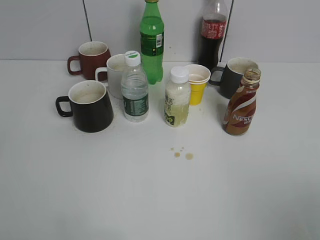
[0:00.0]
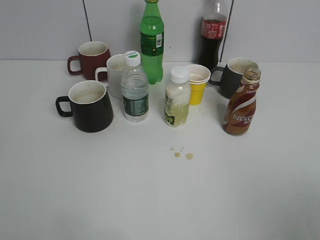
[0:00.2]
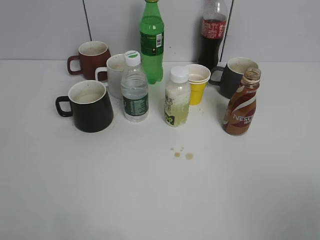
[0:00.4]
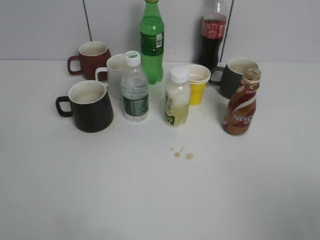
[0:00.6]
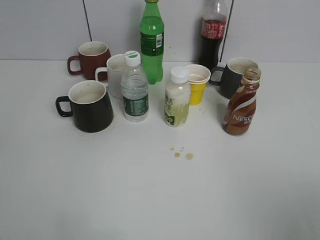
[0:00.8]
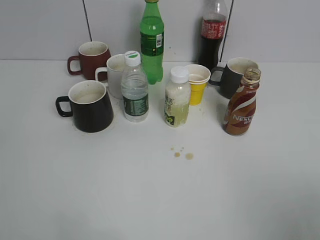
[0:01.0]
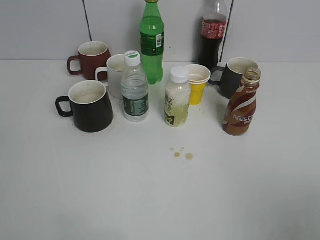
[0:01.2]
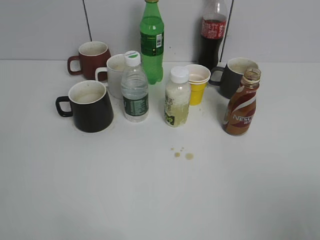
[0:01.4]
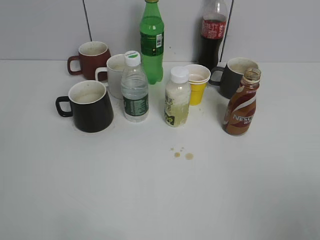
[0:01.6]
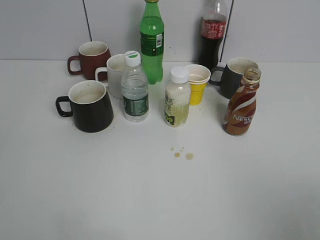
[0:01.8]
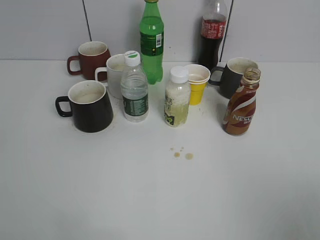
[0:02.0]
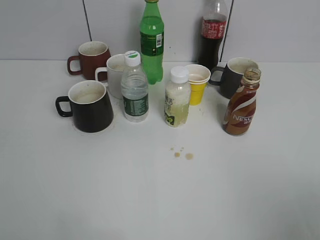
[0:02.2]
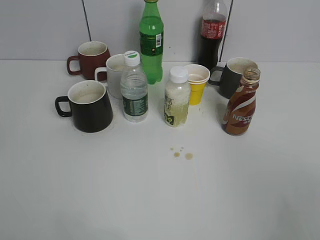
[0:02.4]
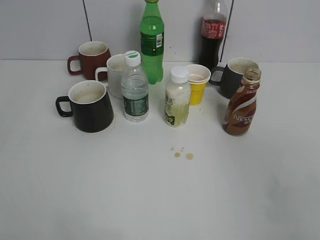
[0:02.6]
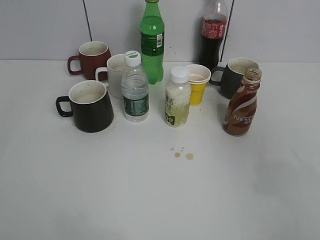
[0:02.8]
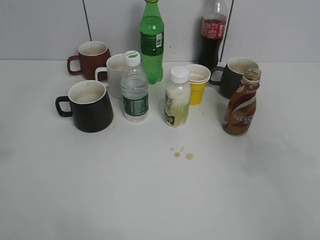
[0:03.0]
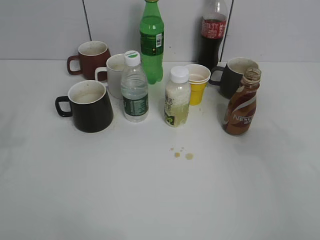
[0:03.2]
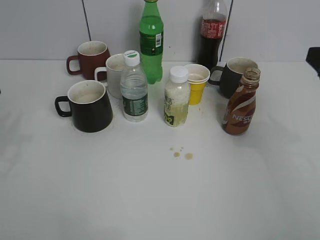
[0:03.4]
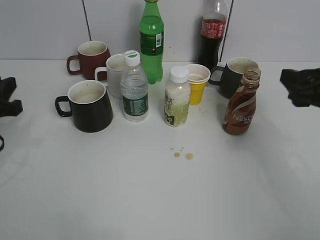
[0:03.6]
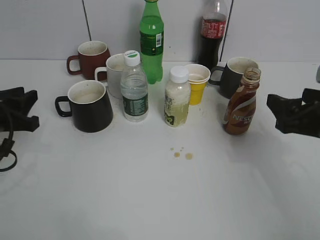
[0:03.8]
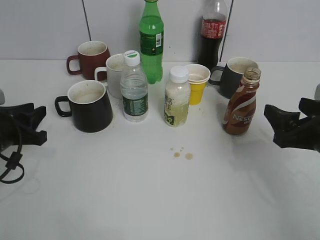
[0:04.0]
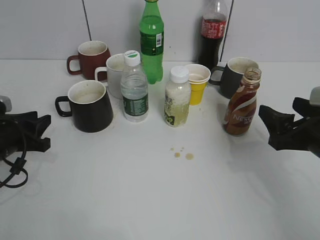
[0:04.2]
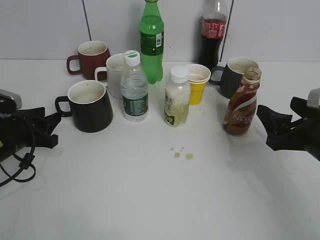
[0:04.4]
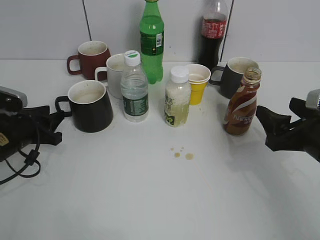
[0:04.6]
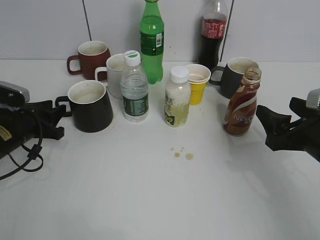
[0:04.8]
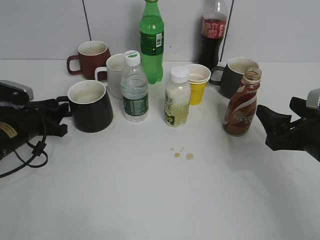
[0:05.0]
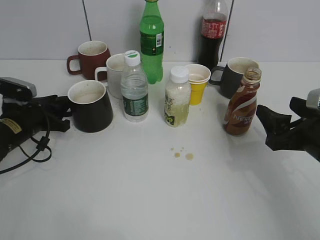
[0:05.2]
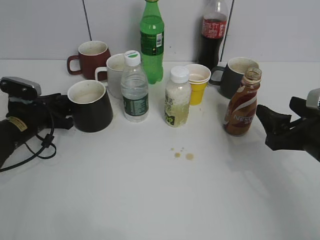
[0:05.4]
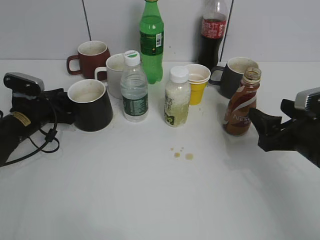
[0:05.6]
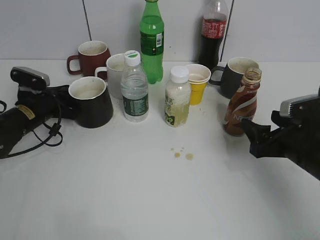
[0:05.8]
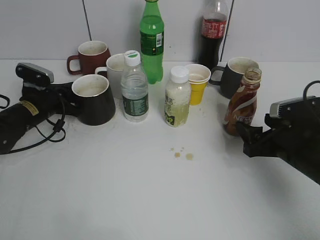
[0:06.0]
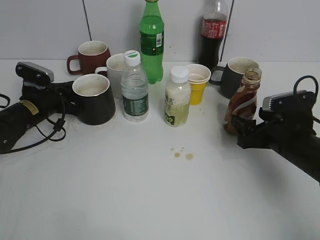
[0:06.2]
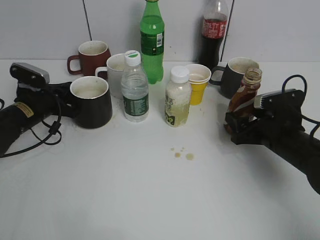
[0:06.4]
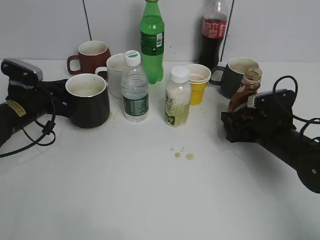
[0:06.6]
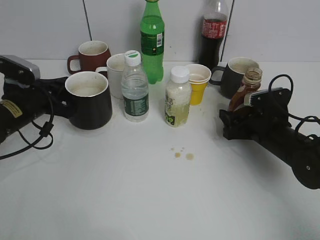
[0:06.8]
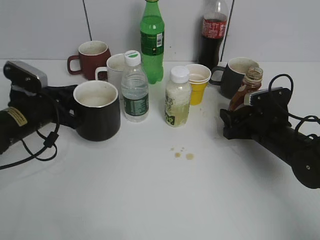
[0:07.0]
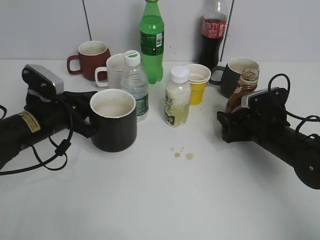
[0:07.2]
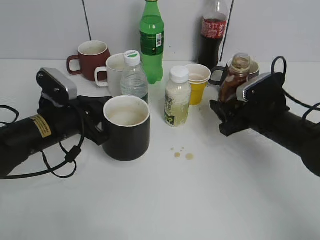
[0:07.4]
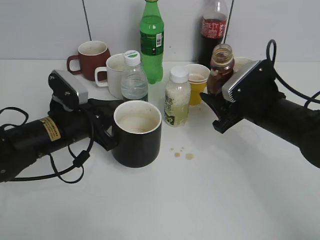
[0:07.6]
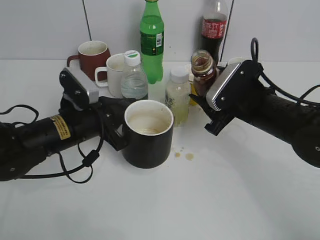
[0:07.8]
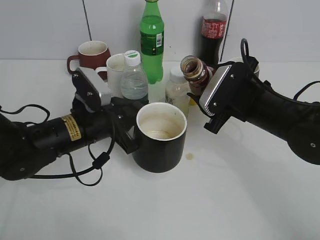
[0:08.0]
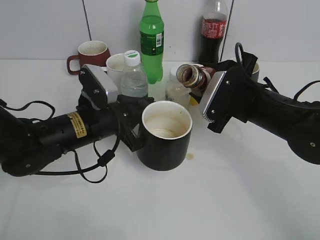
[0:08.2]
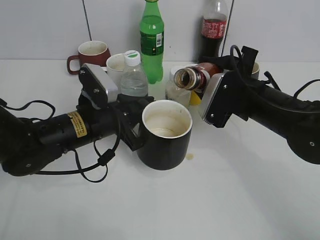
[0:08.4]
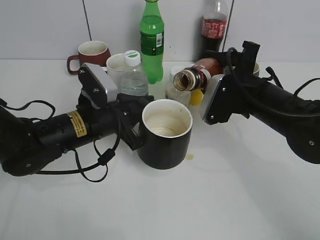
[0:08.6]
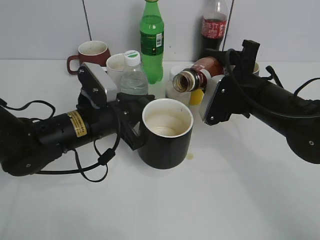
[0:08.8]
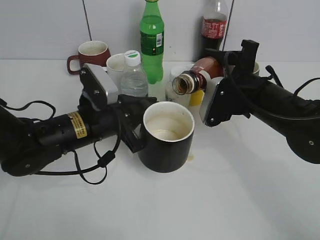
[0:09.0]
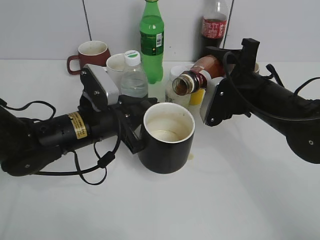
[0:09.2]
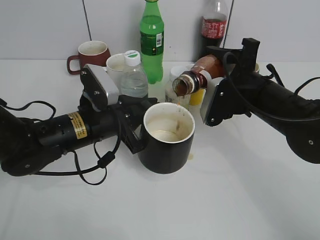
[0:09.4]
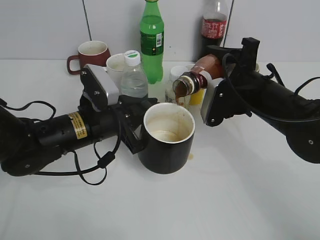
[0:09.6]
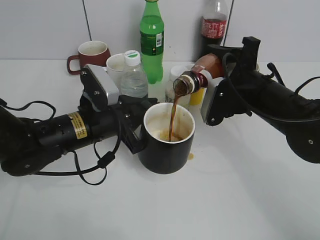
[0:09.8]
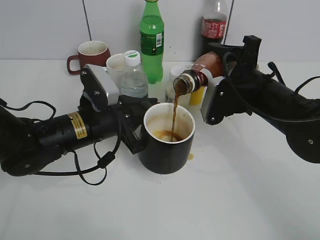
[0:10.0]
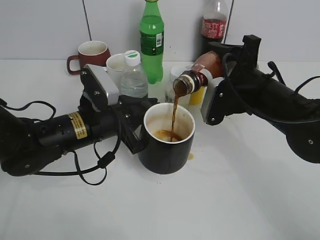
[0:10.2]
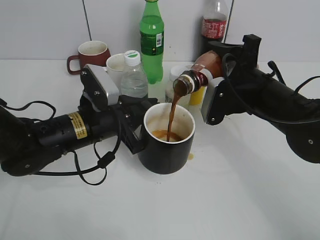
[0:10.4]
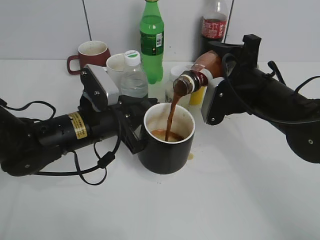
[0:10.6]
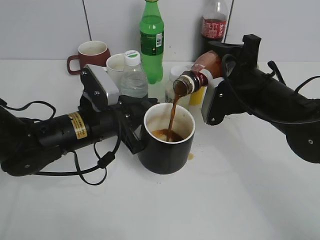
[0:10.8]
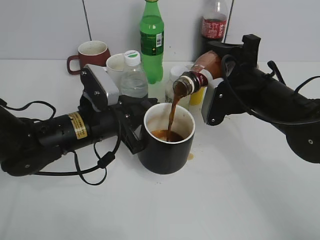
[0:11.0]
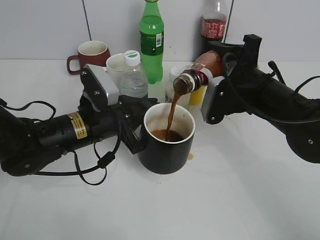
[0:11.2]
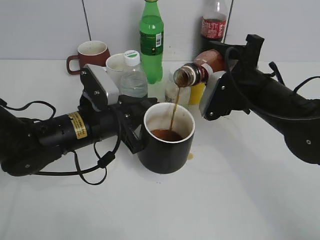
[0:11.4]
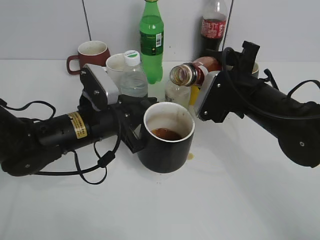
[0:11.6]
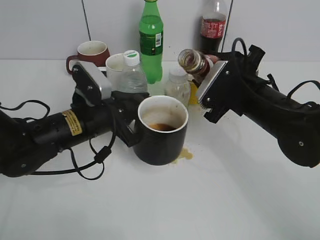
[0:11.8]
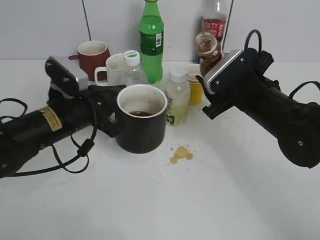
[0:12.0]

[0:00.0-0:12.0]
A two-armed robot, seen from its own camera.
Step, 0:02.2 to 0:05.4: Grasp the black cup with left gripper.
Step, 0:05.6 to 0:06.0: Grasp the bottle with coffee with right gripper.
Step, 0:06.2 to 0:07.0: Lift the black cup with left gripper.
Step, 0:07.2 to 0:11.8: Pour the coffee from bottle to cup with right gripper.
0:01.6 to 0:03.0: The right gripper goes roughly 15 cm forward.
0:03.0 to 0:04.4: The two grippers go roughly 20 cm downward and forward.
0:04.4 to 0:06.0: The left gripper heads forward, covering roughly 10 cm, and closes its fingers; the right gripper goes some 5 cm downward.
0:06.0 to 0:07.6: The left gripper moves backward and to the right, some 15 cm; the right gripper goes approximately 10 cm forward and to the left, and closes up.
0:07.6 to 0:09.0: The left gripper is displaced to the right by about 5 cm.
0:09.0 to 0:10.4: The grippers move only a little.

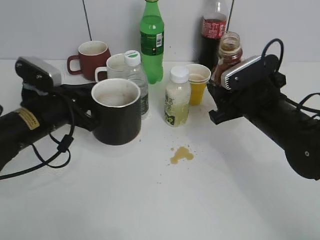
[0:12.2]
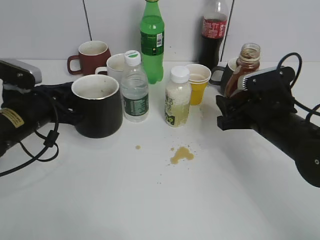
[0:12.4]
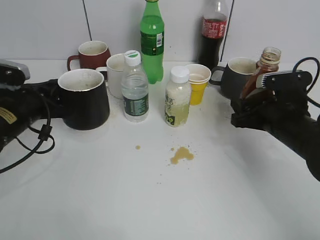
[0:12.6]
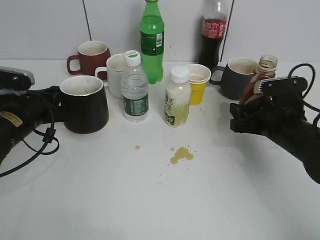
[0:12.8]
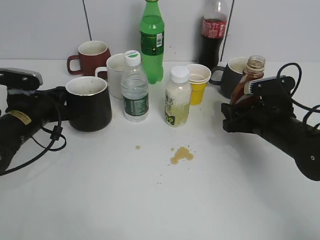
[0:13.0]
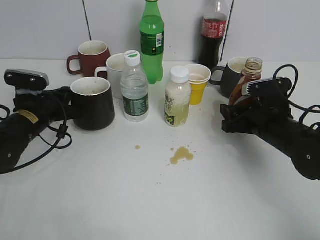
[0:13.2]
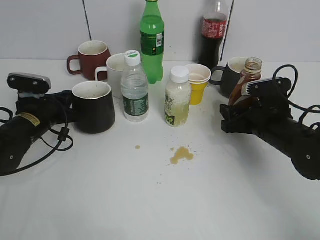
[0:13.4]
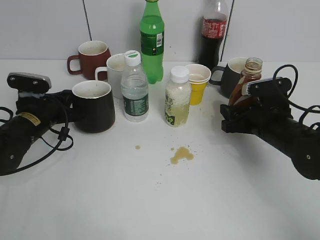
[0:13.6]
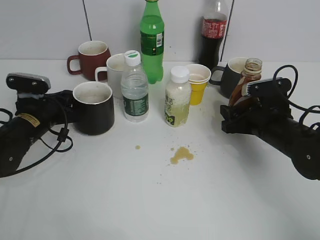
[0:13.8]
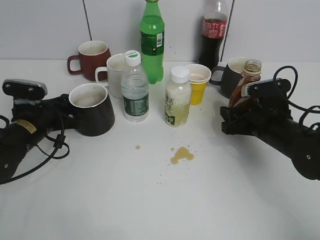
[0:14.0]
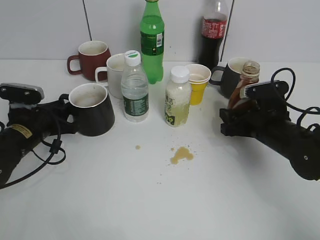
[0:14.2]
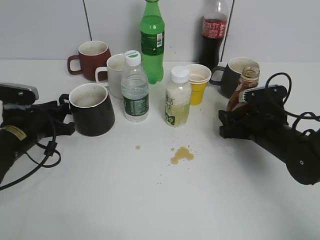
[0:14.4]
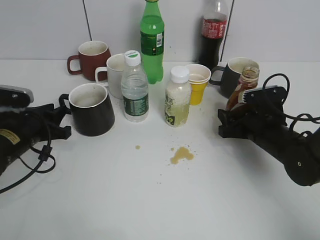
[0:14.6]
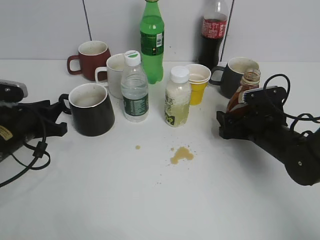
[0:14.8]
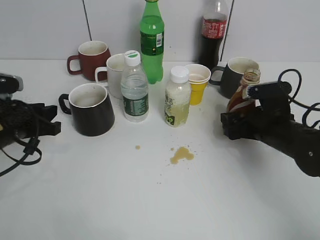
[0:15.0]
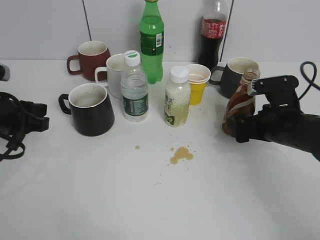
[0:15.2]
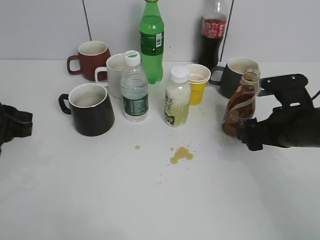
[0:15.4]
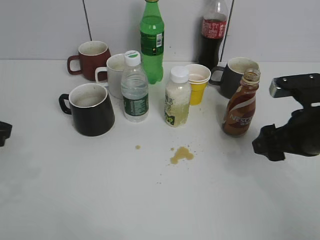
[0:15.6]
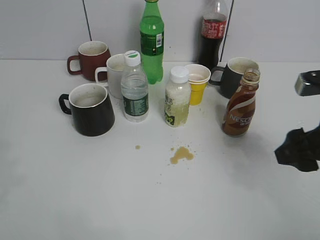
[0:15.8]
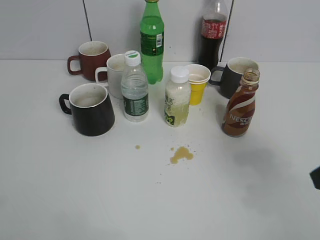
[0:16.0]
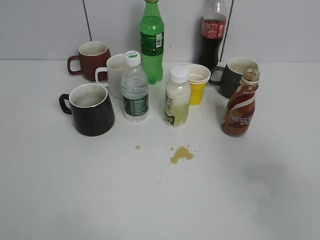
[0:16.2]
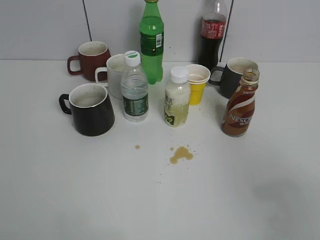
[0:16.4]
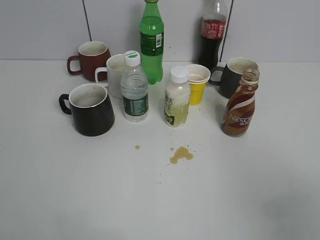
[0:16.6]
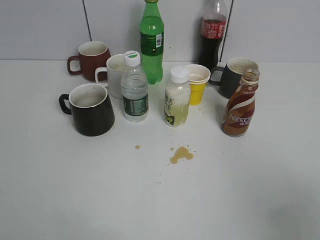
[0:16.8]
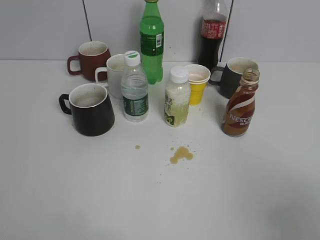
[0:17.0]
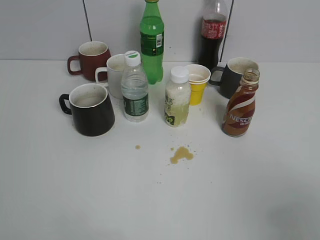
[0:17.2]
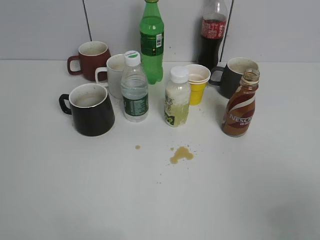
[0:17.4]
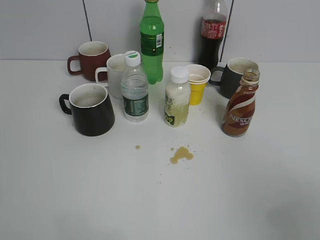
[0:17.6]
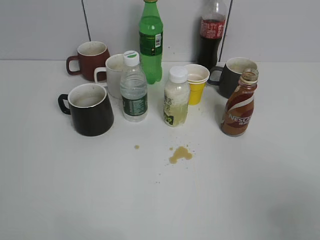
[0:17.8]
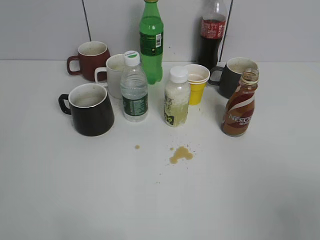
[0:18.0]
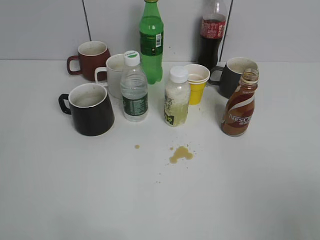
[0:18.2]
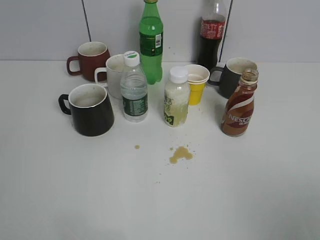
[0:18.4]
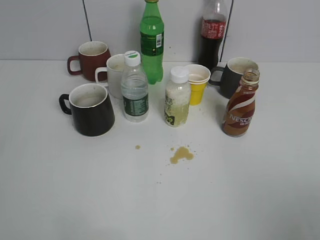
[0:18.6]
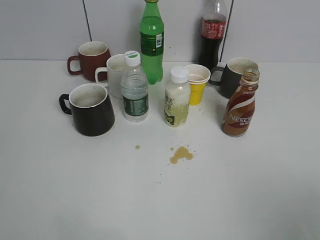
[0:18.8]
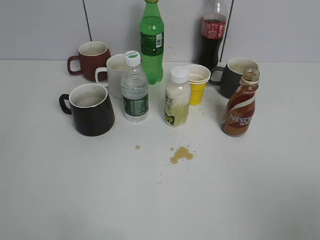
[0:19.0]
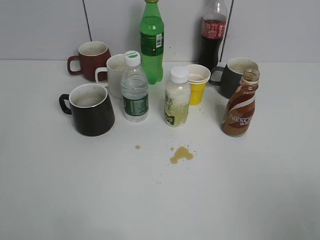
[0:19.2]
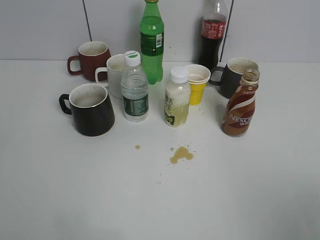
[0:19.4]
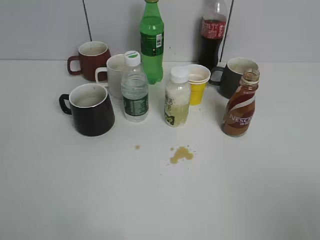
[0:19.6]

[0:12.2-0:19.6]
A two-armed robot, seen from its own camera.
Step, 0:12.2 to 0:15.0: Place the coffee bottle on the table with right gripper.
0:12.2 to 0:13.6: The right gripper is displaced downward by some 5 cm. Meanwhile the left gripper heads downward and forward, covering roughly 10 cm.
0:13.6 to 0:15.2: The right gripper opens. Meanwhile the left gripper goes roughly 10 cm backward and upward, and opens its fingers.
0:15.2 to 0:16.6: The grippers both shift backward and upward by roughly 30 cm. The right gripper closes its fingers.

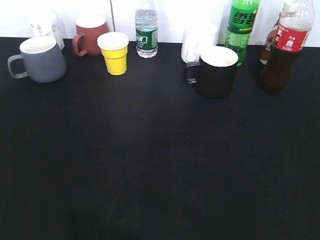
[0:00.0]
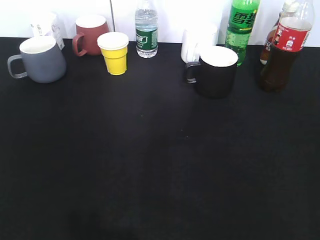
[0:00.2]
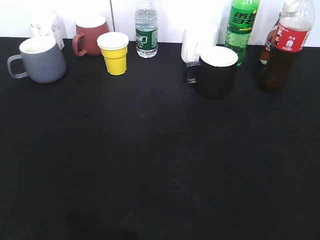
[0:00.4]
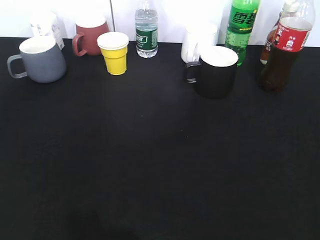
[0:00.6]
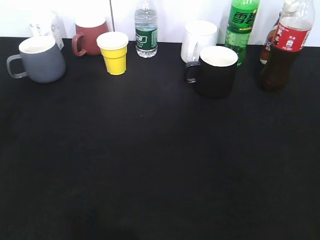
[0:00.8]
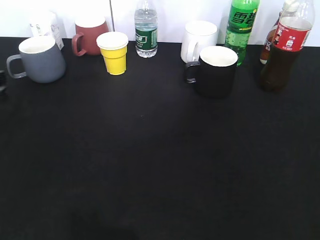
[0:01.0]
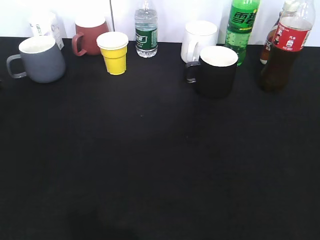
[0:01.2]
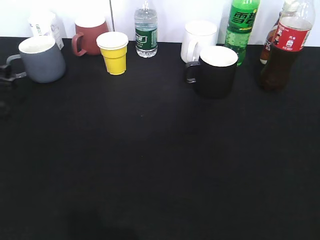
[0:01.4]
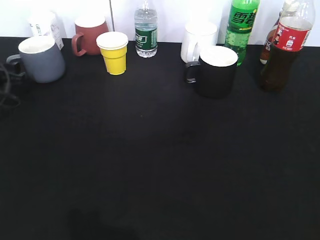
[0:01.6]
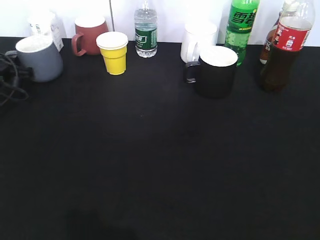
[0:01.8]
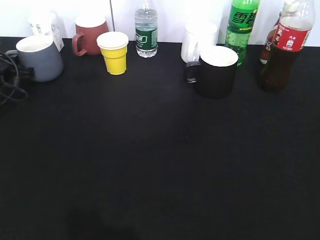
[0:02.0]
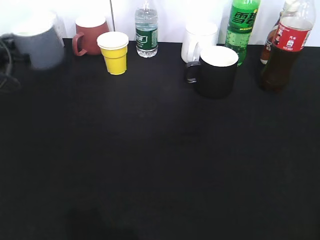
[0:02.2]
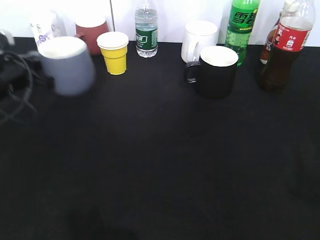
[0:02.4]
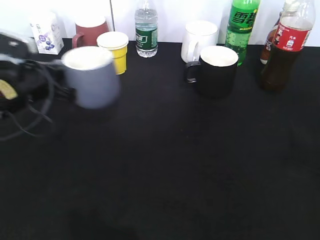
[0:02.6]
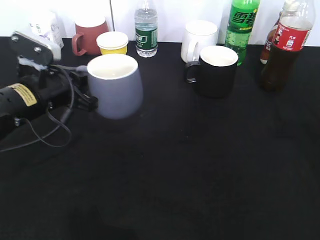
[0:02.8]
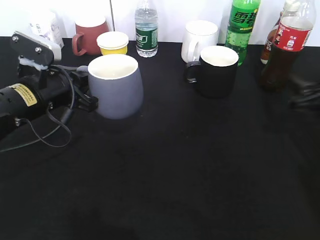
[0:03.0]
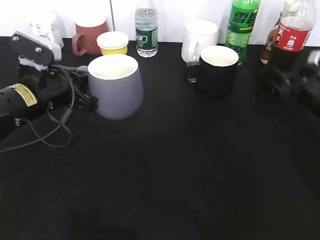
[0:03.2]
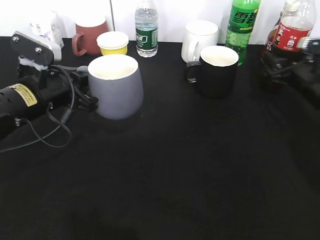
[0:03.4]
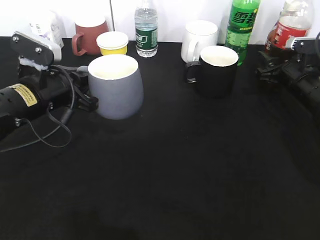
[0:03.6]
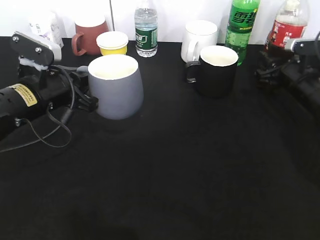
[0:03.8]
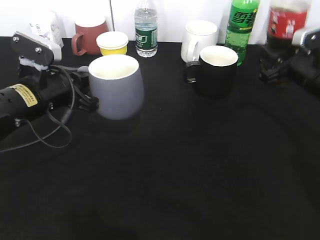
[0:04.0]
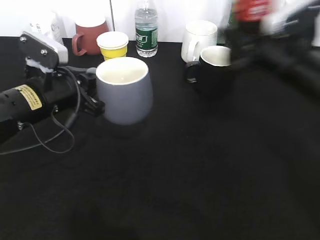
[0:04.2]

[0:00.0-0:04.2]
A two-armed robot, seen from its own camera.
Step, 0:02.0 to 0:02.6: Lift the grey cup with left gripper.
Step, 0:02.8 to 0:03.6: Grasp the bottle with cola with right gripper.
0:00.0 to 0:01.4: The left gripper moves forward, roughly 35 cm.
0:01.4 to 0:02.8: The right gripper moves forward, about 25 cm; the left gripper shifts some 15 cm to the right, and closes up.
0:02.8 to 0:04.2: The right gripper travels to the left and forward by some 15 cm, and closes up.
